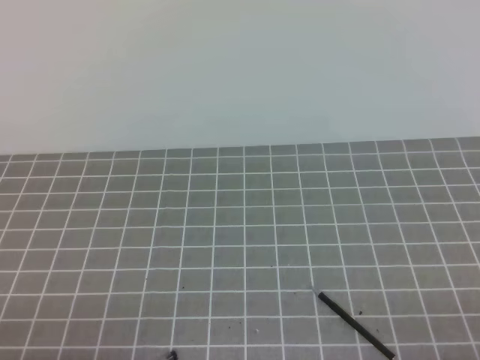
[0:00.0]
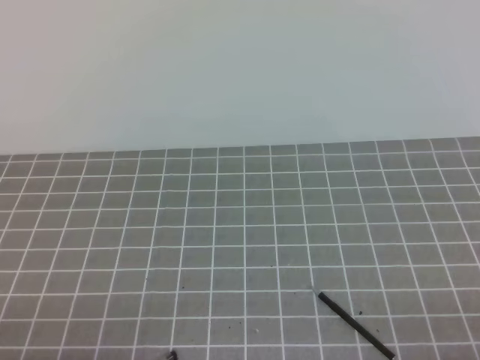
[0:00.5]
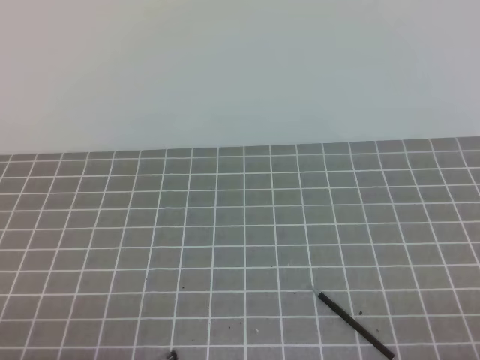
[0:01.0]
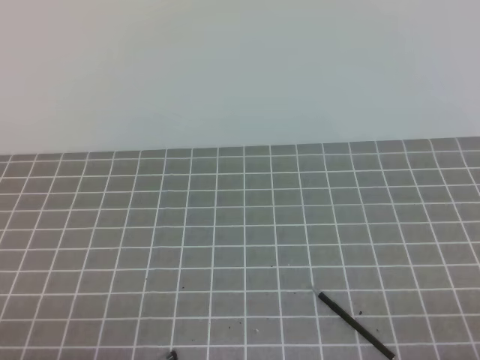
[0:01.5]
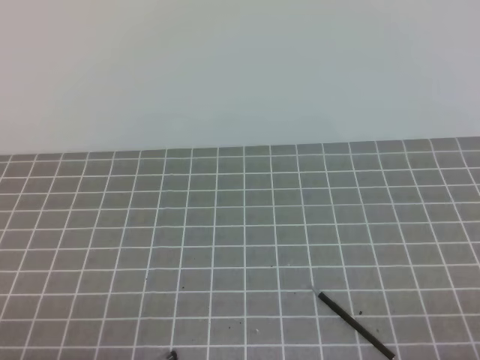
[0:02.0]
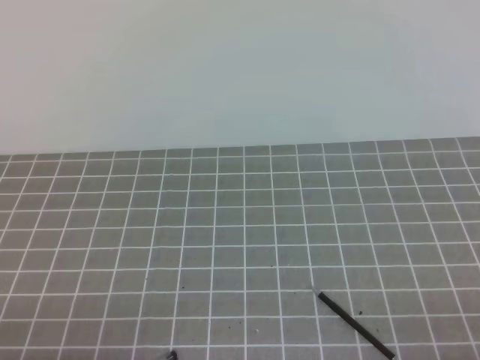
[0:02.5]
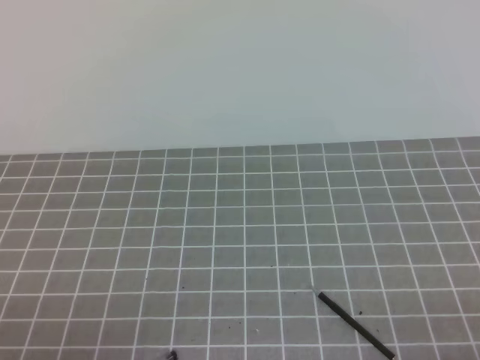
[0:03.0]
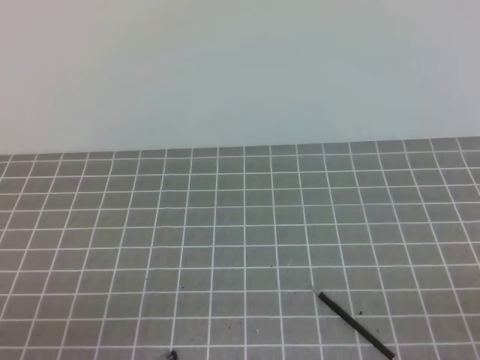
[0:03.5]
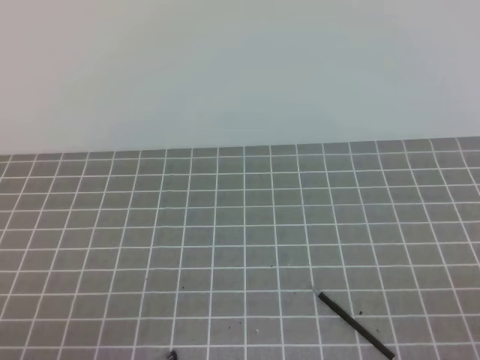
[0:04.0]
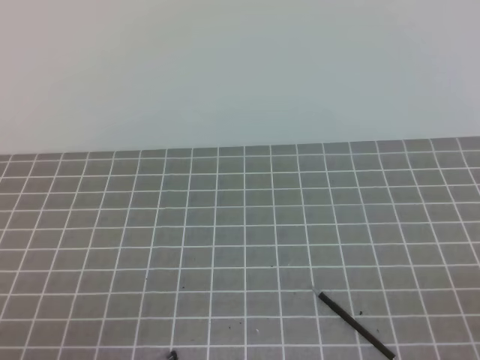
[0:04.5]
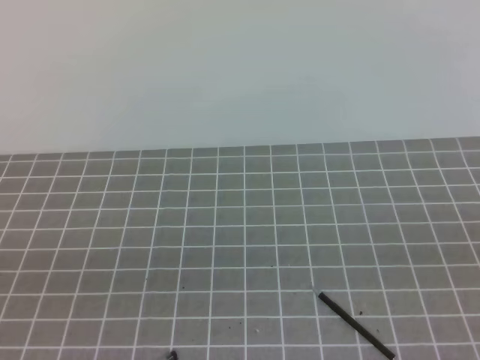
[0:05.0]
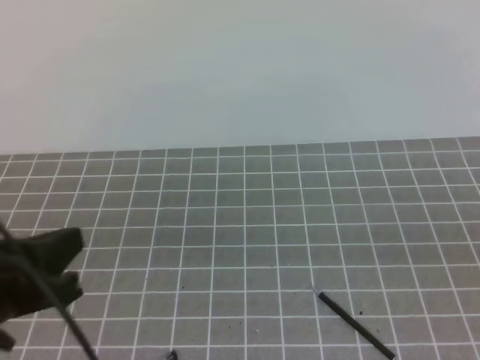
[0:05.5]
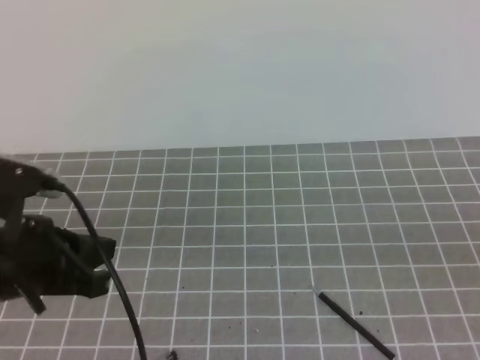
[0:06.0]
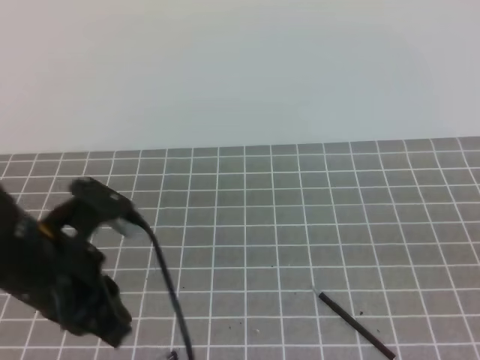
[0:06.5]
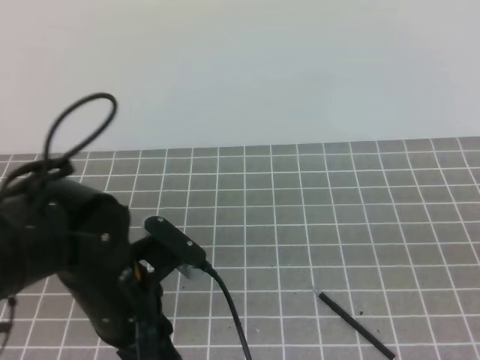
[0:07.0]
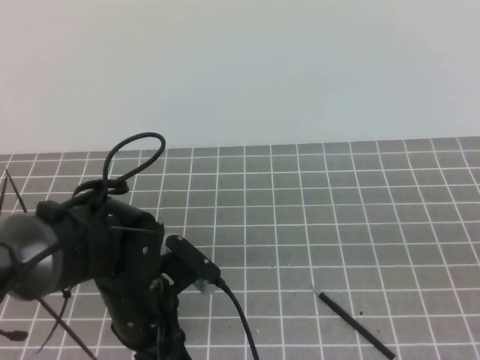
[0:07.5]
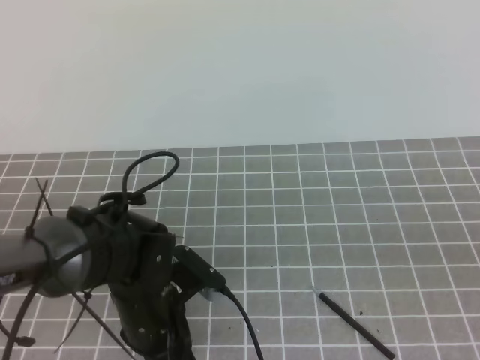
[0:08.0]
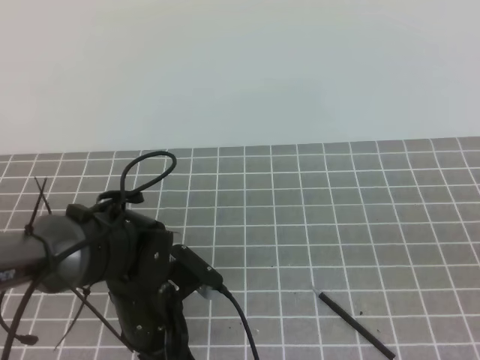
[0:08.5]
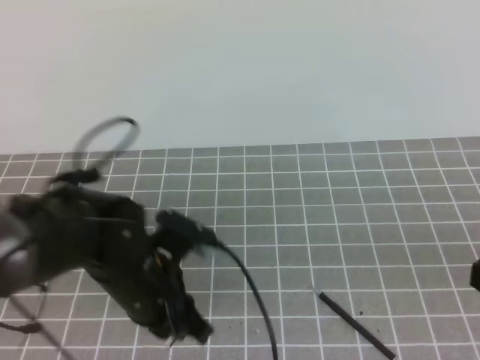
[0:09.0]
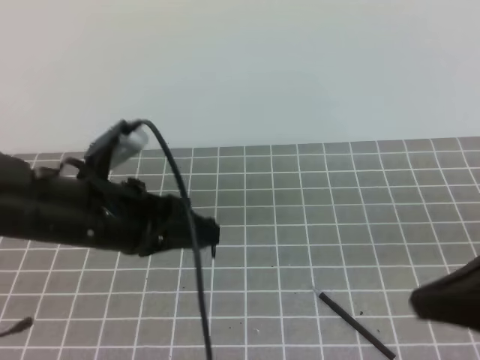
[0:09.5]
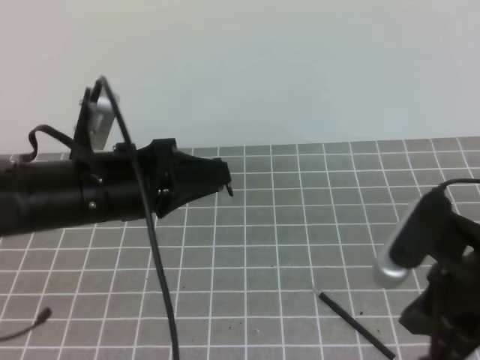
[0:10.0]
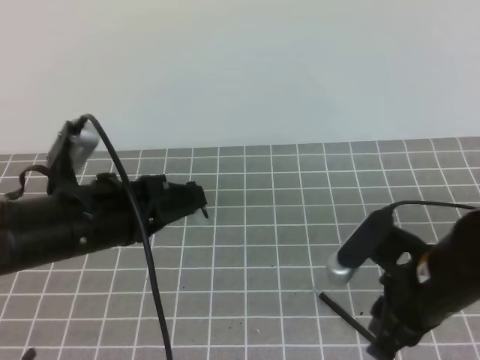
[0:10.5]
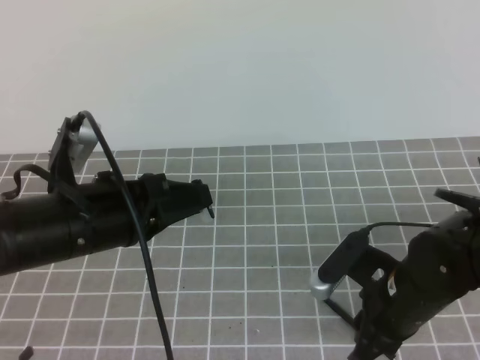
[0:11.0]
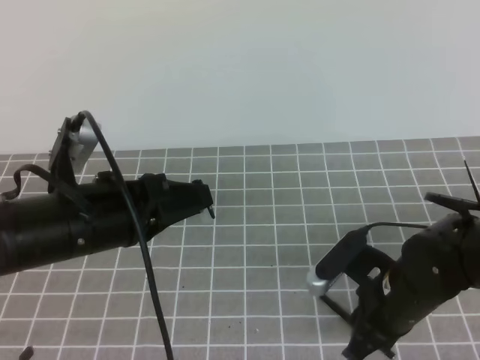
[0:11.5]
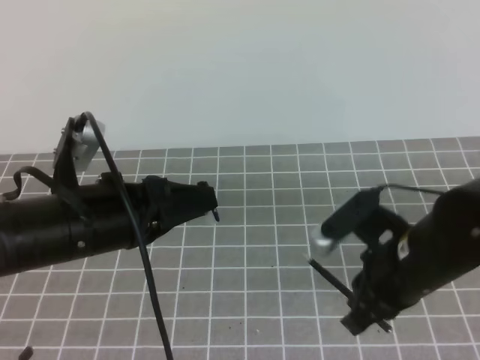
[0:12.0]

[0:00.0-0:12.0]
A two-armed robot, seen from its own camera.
Task of the whole recording: on the grey tablecloth, hold the pen cap in one hand and the pen in the other, then cover the pen cap.
0:00.0 to 0:02.0: Both grippers stay about where they are.
0:04.0 to 0:06.0: The left gripper travels forward and upward by roughly 15 cm.
0:06.0 to 0:08.0: The left gripper heads downward and to the right, covering approximately 15 cm, and opens.
0:08.0 to 0:10.0: The right gripper is displaced to the left and forward by roughly 10 cm, while the left gripper shifts roughly 15 cm upward, and closes its fingers.
0:10.0 to 0:12.0: The right gripper is displaced downward, forward and to the left by roughly 10 cm, and opens, then closes once more.

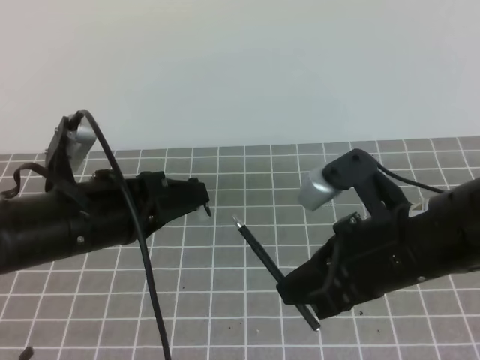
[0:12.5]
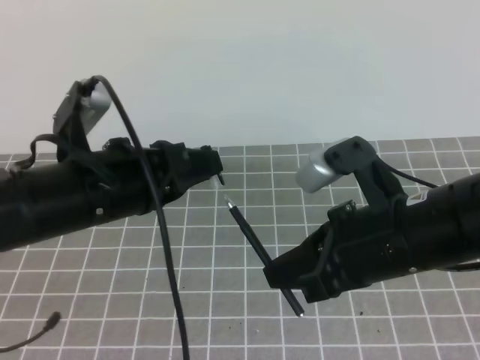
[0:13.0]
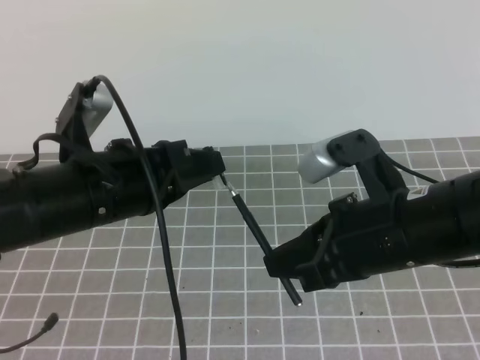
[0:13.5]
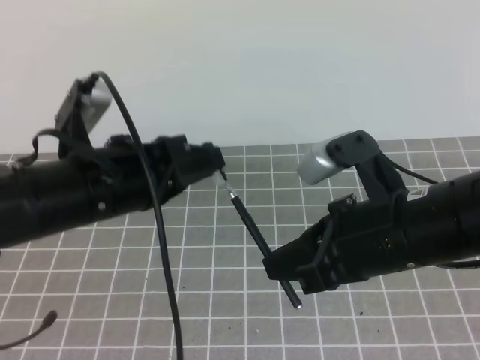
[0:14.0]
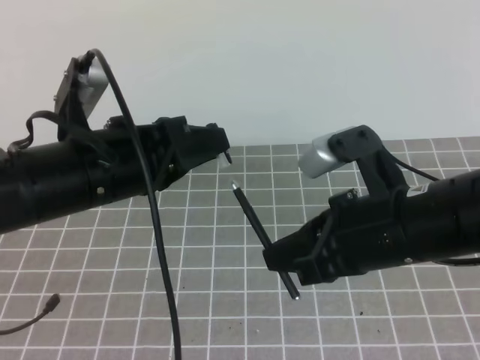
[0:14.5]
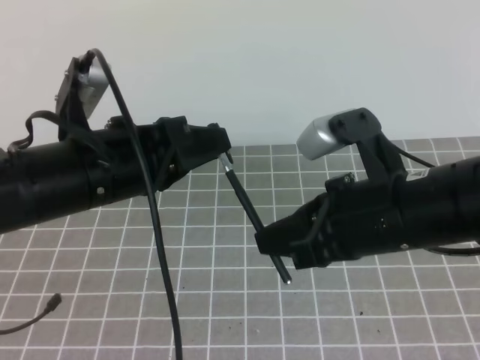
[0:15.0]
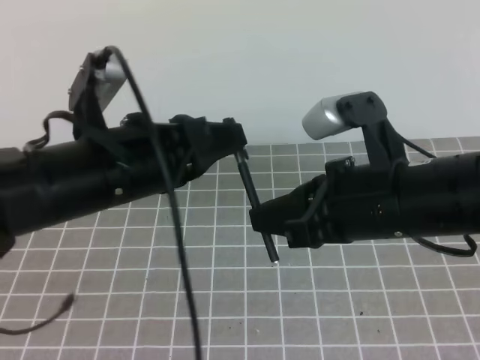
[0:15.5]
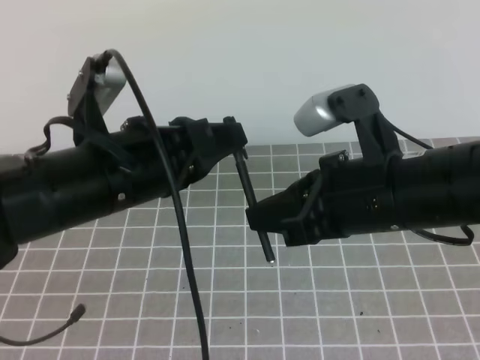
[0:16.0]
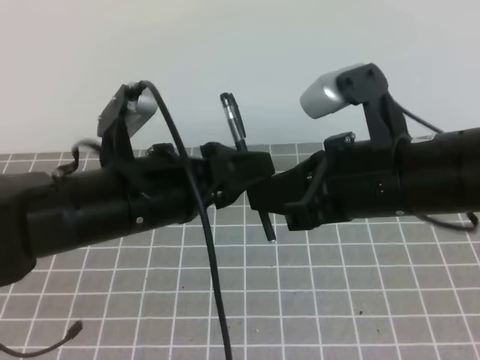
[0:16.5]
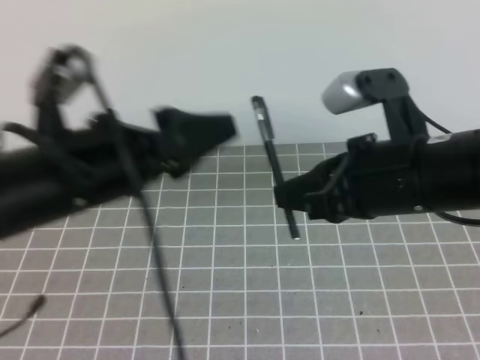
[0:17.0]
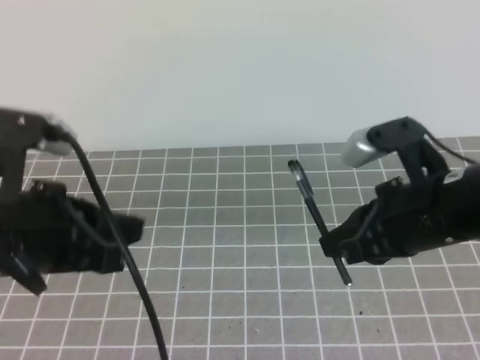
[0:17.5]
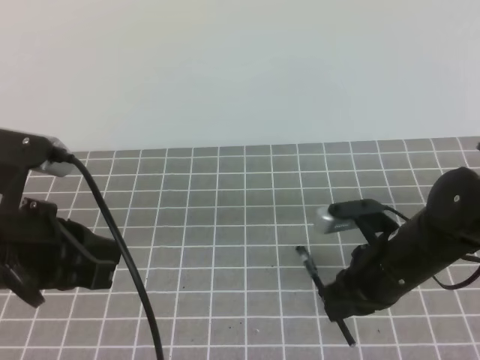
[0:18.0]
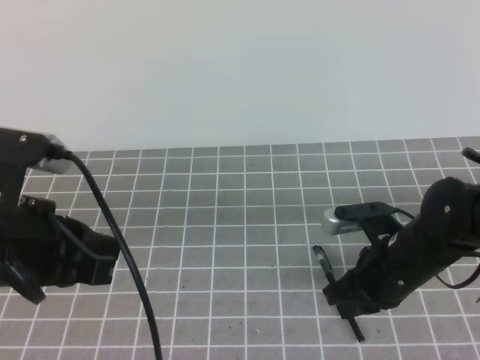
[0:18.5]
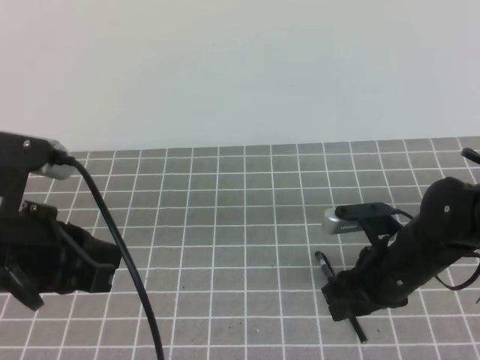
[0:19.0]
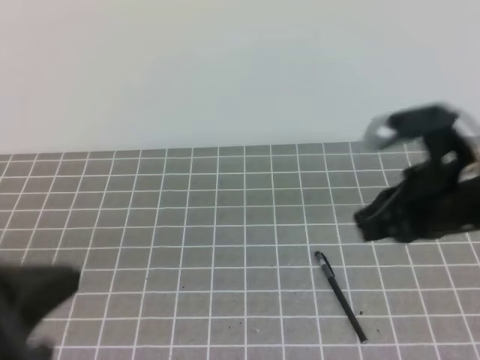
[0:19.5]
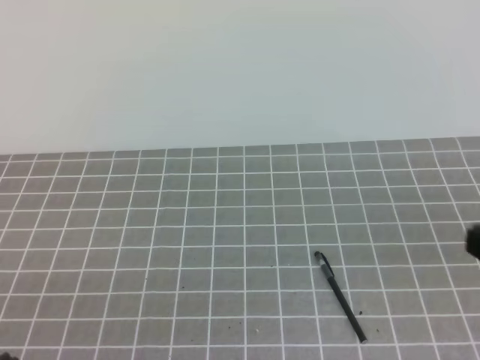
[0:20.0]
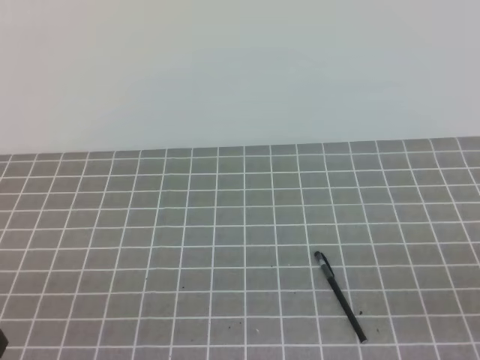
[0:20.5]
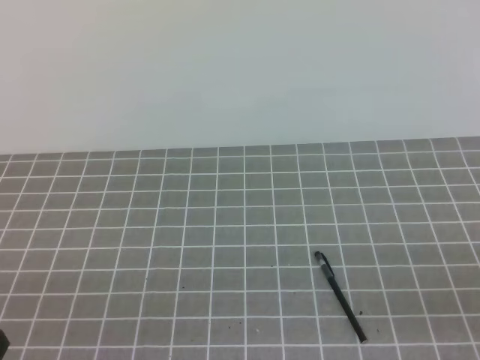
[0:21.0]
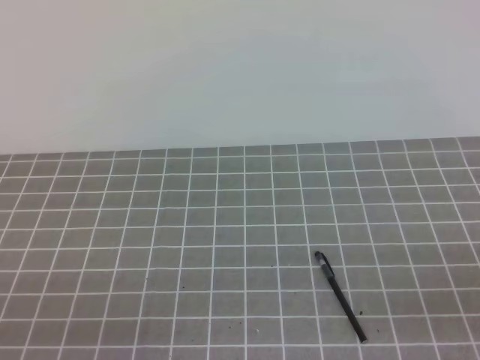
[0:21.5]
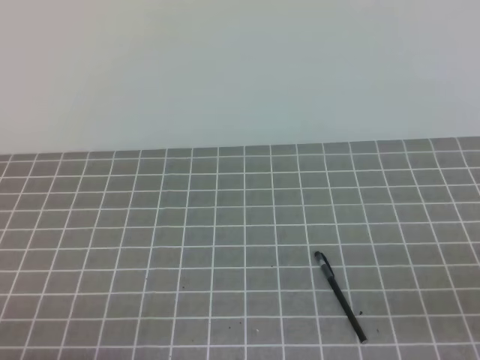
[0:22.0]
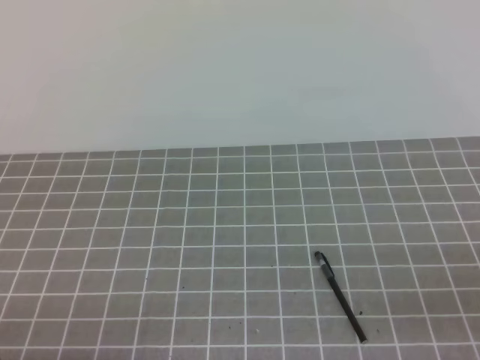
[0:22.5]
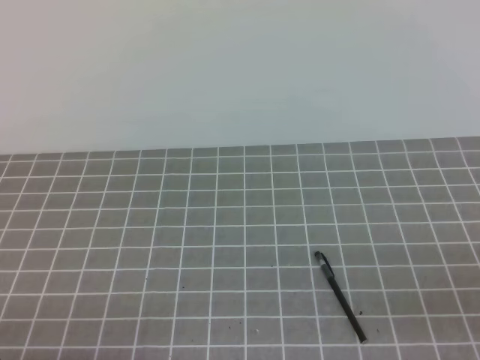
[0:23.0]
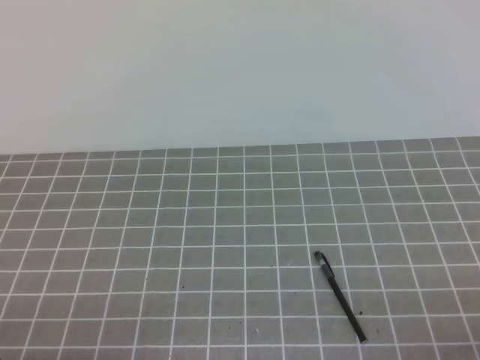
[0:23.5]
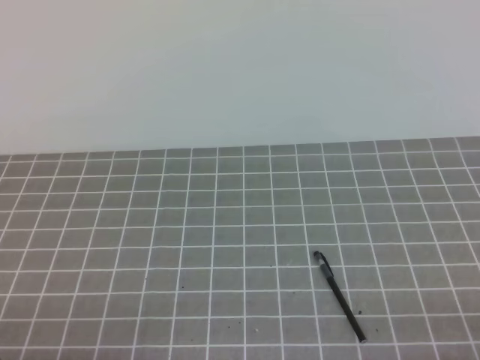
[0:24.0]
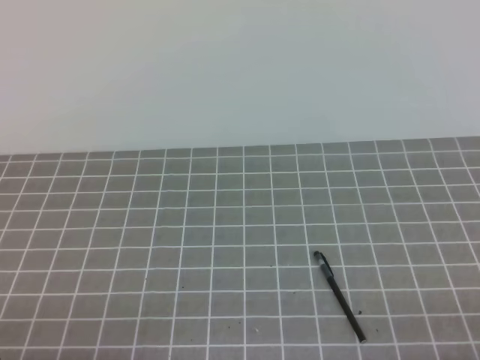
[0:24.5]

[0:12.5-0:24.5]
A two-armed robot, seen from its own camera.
Task of the whole recording: on the grey tablecloth, hold the pen cap in one hand and the pen in the other, then cover the pen cap.
Step, 0:12.5 to 0:24.5: Put the cap on the pen.
0:14.5 to 0:16.5: The left gripper opens up.
0:16.5 to 0:18.5: The right gripper travels downward by some 15 cm; the left gripper moves to the left, approximately 10 cm, and closes its fingers.
0:18.5 to 0:20.5: The right gripper travels backward and to the right by about 25 cm, and opens, then closes once more. The left gripper moves backward and downward, roughly 15 cm.
